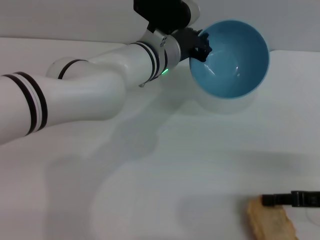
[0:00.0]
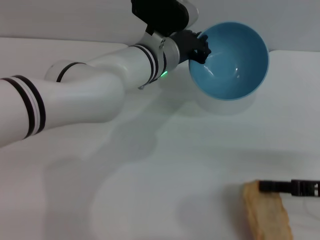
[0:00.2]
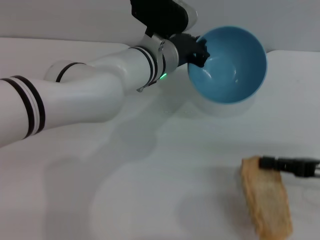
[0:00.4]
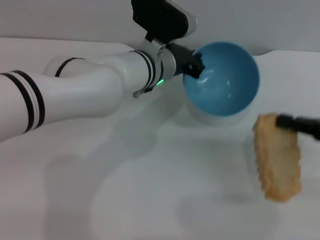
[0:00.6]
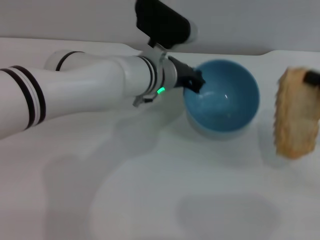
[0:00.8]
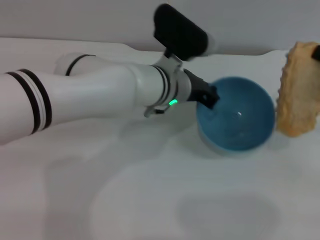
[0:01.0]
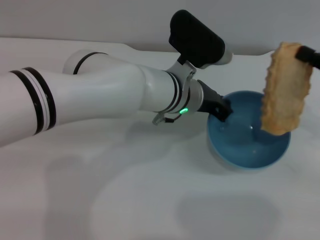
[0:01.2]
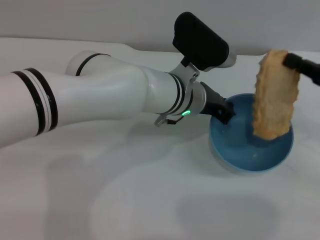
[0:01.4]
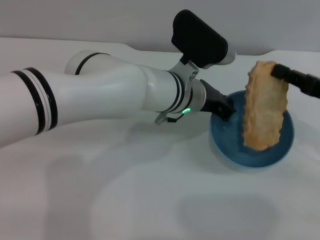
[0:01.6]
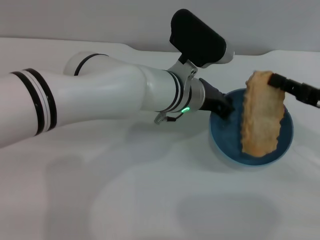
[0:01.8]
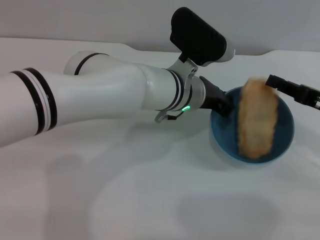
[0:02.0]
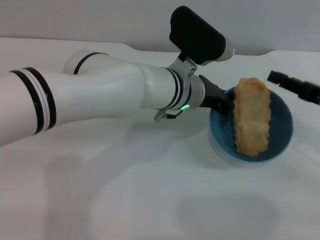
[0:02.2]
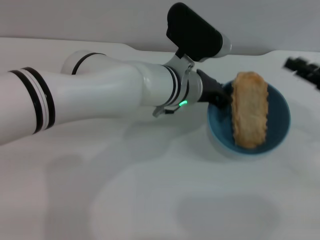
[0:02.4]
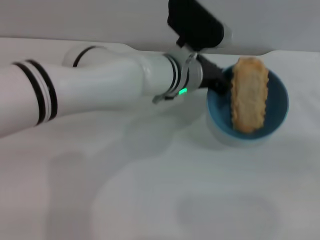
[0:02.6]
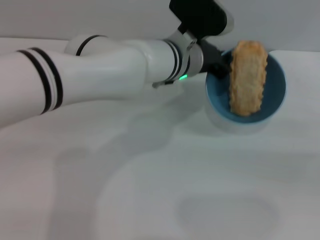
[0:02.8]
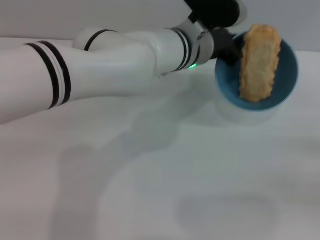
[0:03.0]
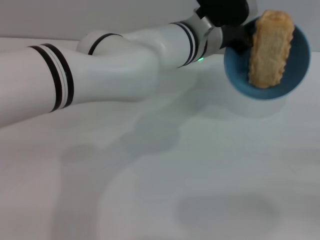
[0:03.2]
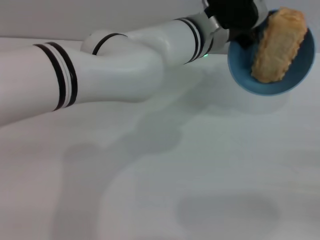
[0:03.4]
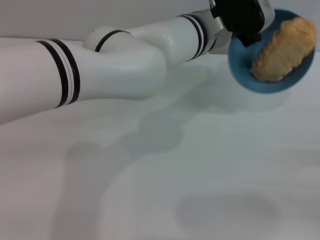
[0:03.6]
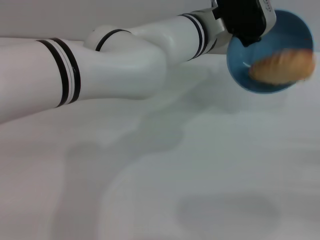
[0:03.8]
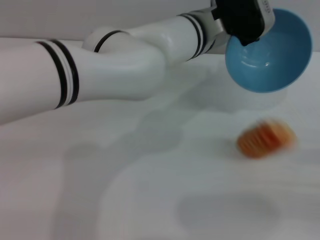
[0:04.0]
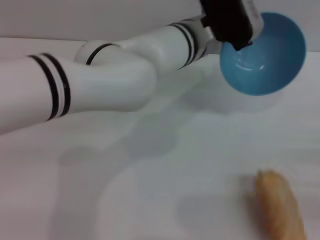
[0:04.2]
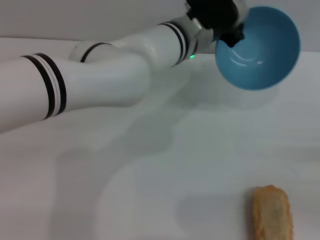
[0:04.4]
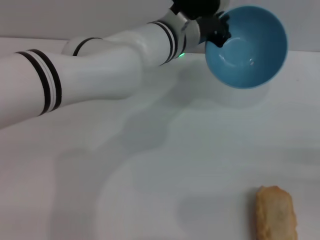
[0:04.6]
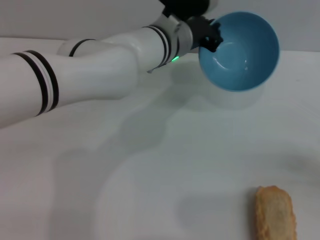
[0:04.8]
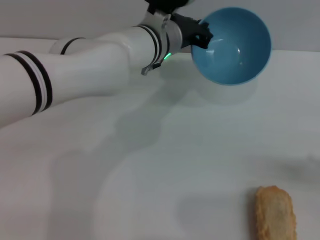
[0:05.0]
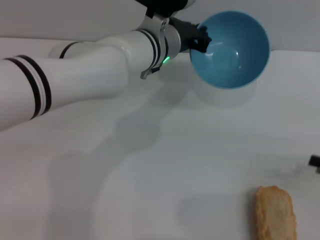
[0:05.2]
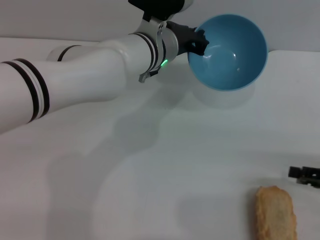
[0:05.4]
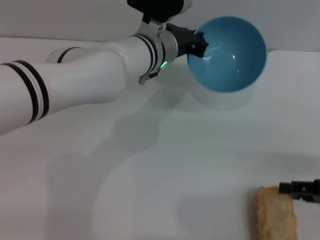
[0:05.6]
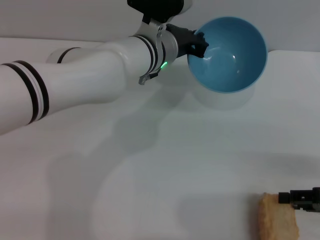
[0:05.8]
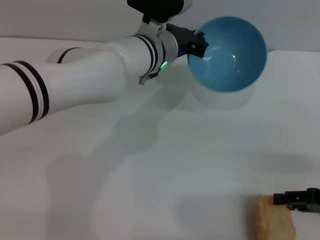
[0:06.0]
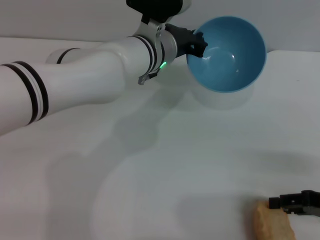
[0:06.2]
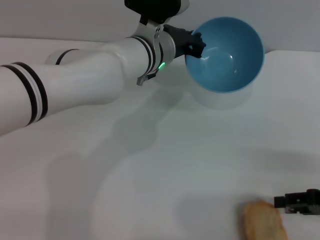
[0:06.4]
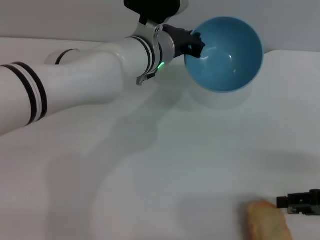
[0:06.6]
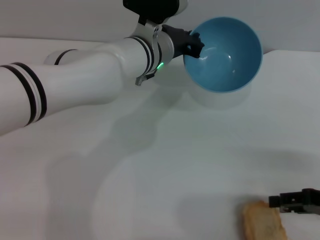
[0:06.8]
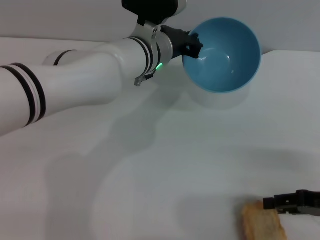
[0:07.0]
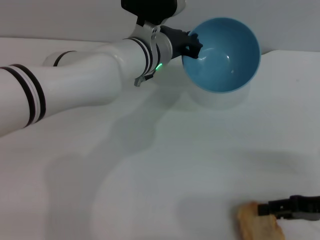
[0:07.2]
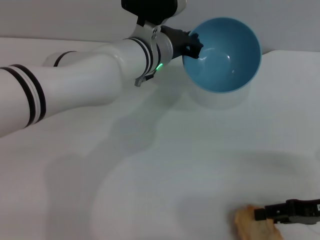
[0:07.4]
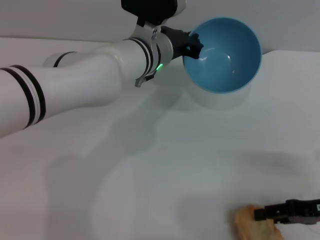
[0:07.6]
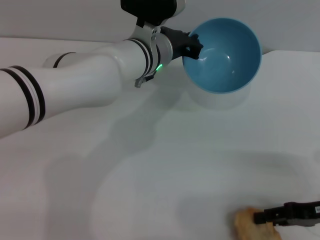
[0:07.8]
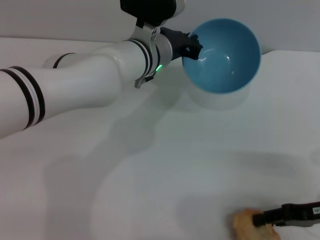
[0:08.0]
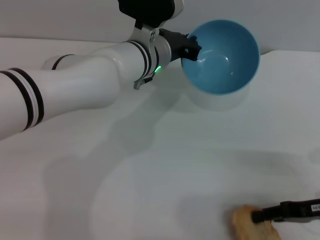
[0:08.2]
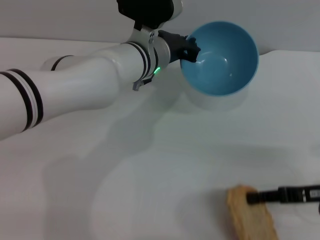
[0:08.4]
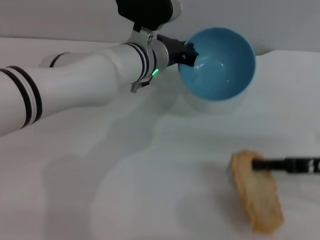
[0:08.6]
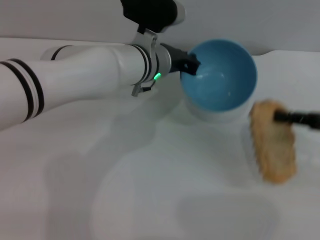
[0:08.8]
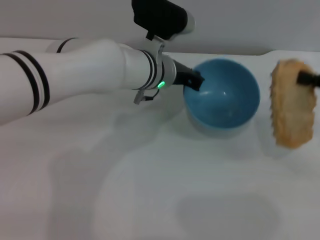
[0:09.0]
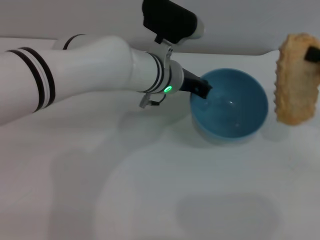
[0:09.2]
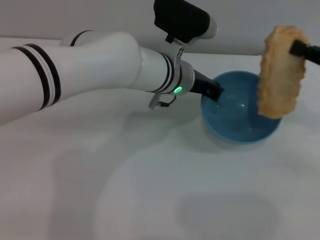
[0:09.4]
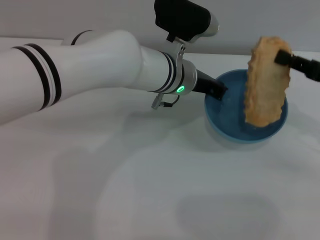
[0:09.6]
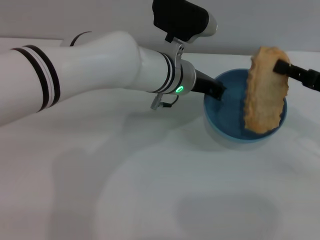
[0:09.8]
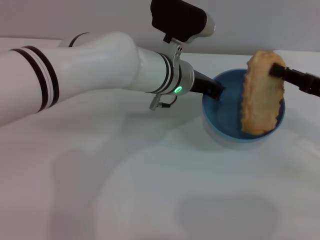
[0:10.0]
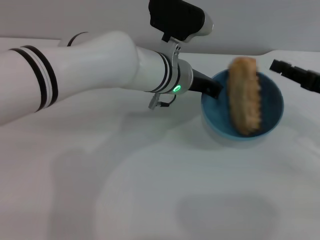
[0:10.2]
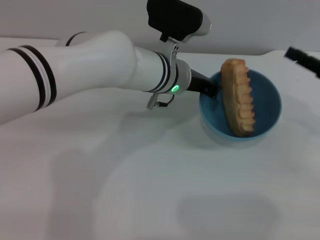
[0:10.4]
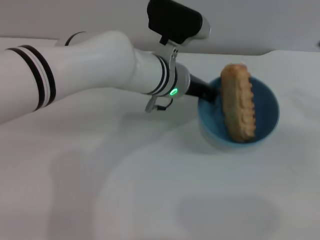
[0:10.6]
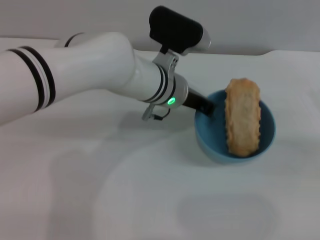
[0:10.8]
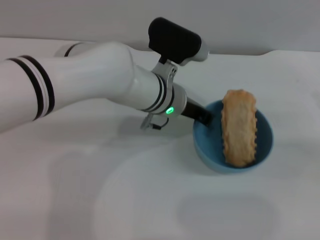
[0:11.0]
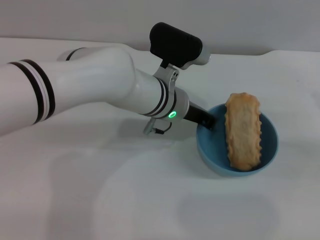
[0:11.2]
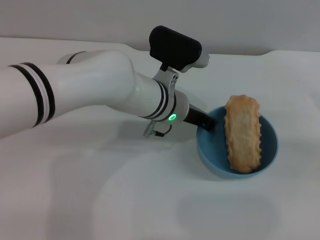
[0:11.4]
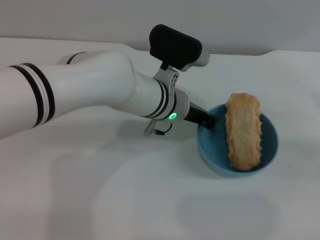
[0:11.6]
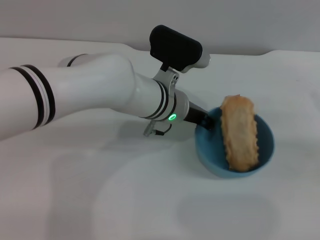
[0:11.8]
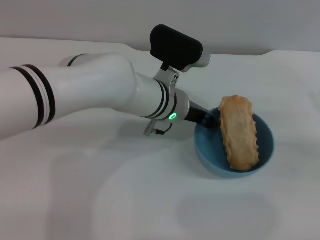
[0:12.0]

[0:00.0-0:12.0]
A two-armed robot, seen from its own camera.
Task of the whole recording: put the bread into the blue bowl and pour it out repeatedly.
Step, 0:00.8 to 0:02.2: Place the bread into the bowl.
Step, 0:02.6 to 0:04.4: Pour the bread out of the bowl.
Step, 0:04.6 to 0:08.6: Pick up the bread with the right gripper.
Step, 0:09.0 to 0:10.2: Place the bread into the bowl.
0:00.0 to 0:01.6: The left gripper shifts by about 5 cm, while the right gripper is displaced upward and forward by approximately 10 cm.
0:01.6 to 0:03.0: The left gripper changes place by approximately 5 cm. The right gripper heads to the right and backward, covering roughly 15 cm, and opens.
0:04.4 to 0:06.0: The right gripper is displaced to the left by approximately 5 cm.
0:06.0 to 0:07.6: The grippers make only small movements.
0:07.6 to 0:09.0: The right gripper shifts about 15 cm upward and forward, and closes up.
0:09.0 to 0:10.4: The right gripper moves some 5 cm, and opens its fingers.
0:10.4 to 0:12.0: The right gripper shifts by roughly 5 cm.

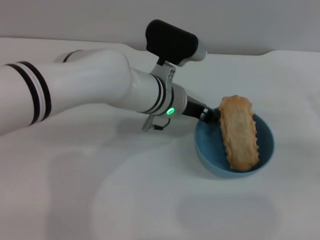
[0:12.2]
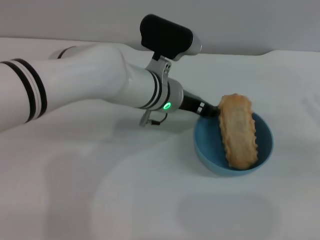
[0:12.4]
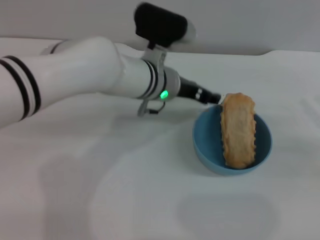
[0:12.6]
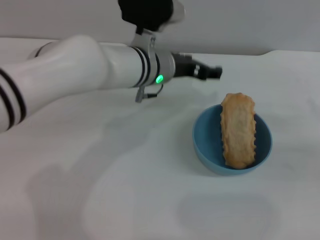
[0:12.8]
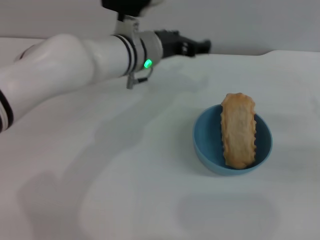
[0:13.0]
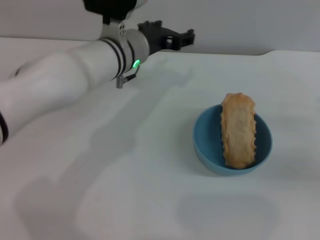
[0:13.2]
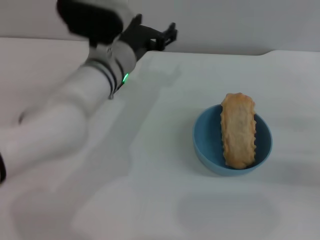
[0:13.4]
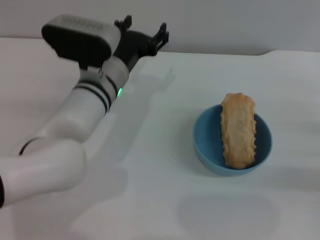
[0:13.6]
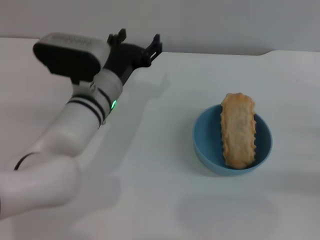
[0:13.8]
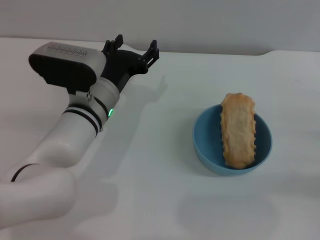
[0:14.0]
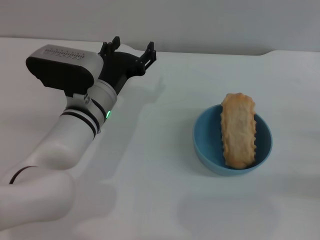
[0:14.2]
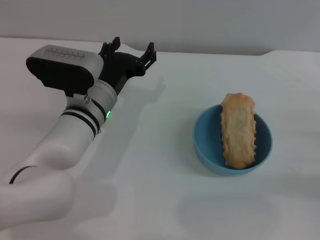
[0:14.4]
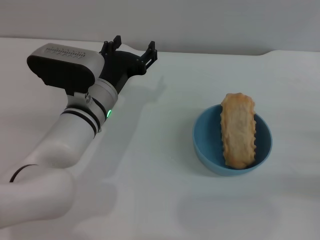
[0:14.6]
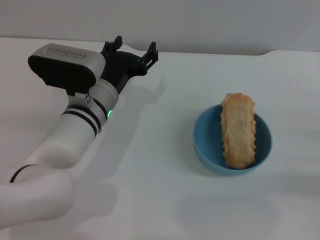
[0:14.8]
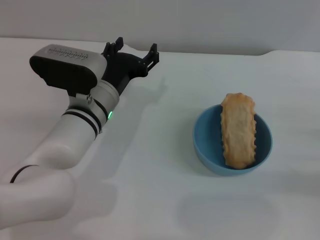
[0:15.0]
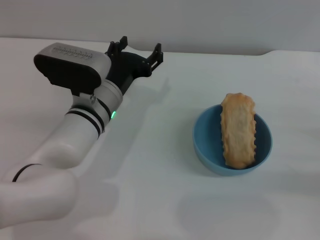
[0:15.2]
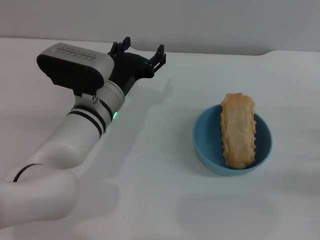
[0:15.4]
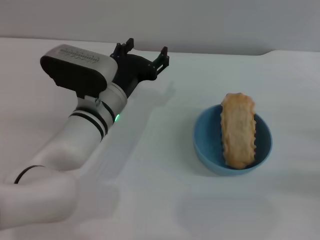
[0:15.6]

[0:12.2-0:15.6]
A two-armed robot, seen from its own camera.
Task of the whole recording: put the bread into the blue bowl and pour it out repeatedly.
0:12.2 to 0:13.8: The left gripper heads to the left, covering some 10 cm, and opens. The right gripper is displaced downward by approximately 5 cm.
0:13.8 to 0:15.6: The grippers move only a little.

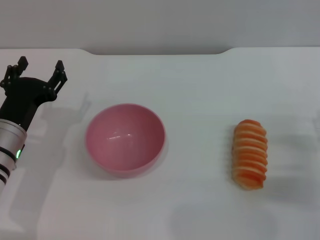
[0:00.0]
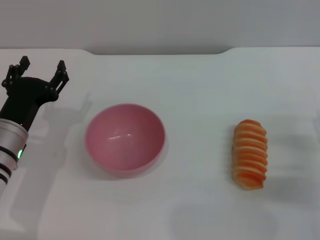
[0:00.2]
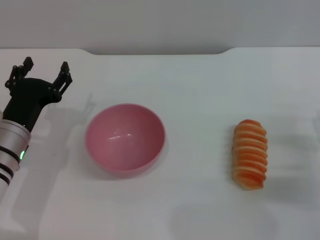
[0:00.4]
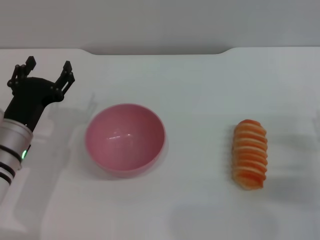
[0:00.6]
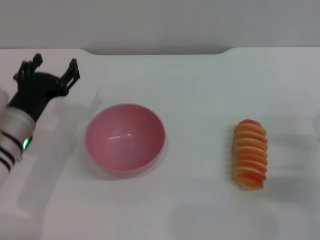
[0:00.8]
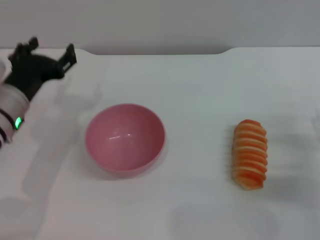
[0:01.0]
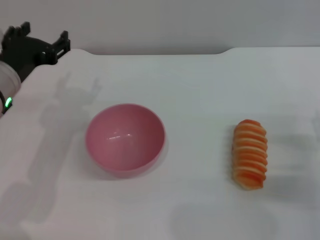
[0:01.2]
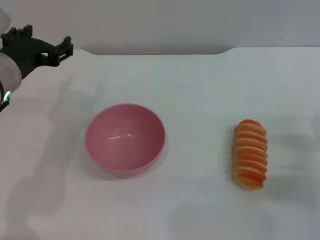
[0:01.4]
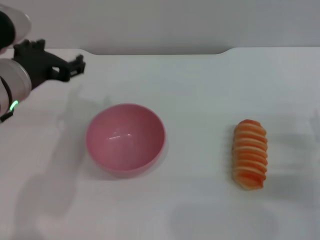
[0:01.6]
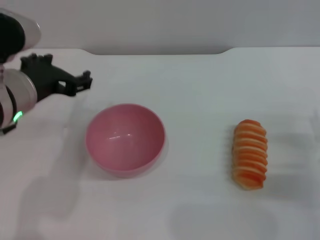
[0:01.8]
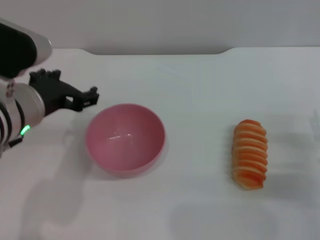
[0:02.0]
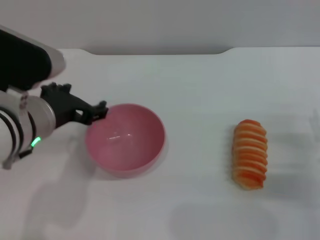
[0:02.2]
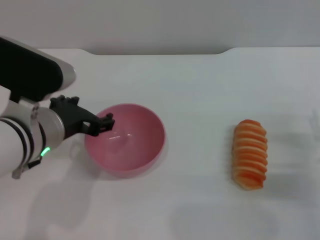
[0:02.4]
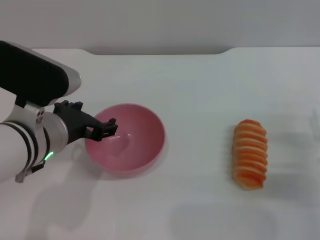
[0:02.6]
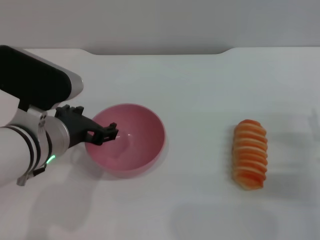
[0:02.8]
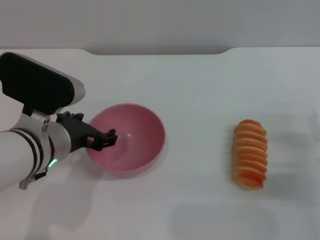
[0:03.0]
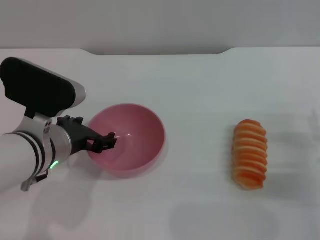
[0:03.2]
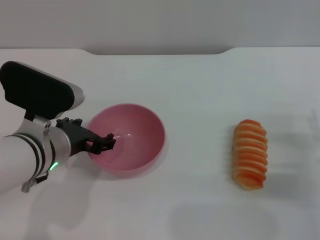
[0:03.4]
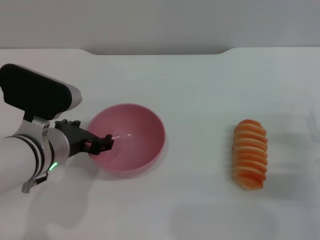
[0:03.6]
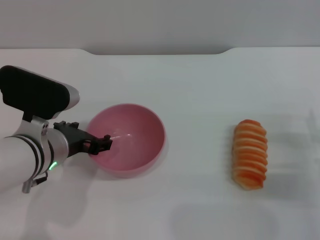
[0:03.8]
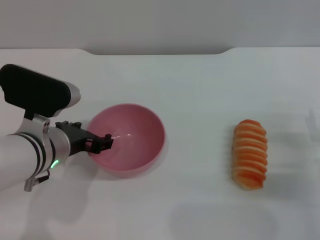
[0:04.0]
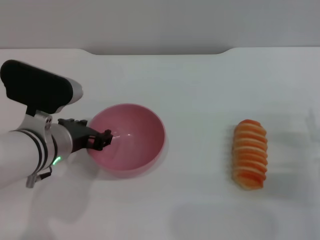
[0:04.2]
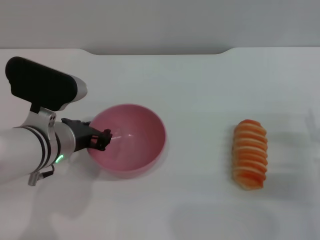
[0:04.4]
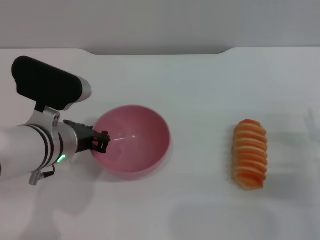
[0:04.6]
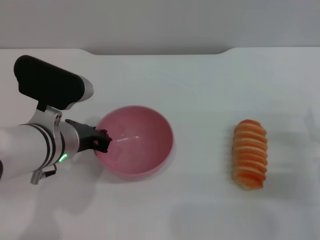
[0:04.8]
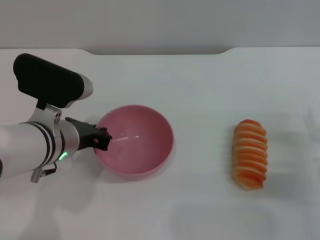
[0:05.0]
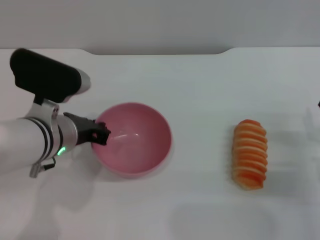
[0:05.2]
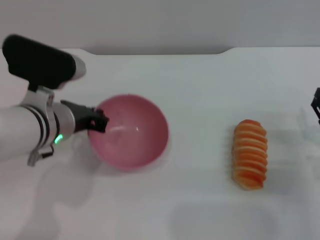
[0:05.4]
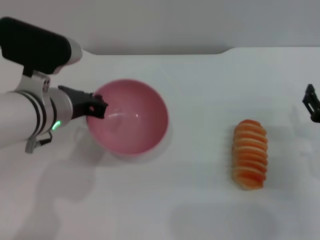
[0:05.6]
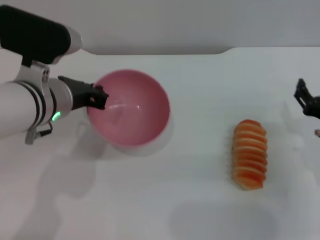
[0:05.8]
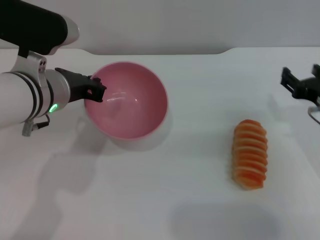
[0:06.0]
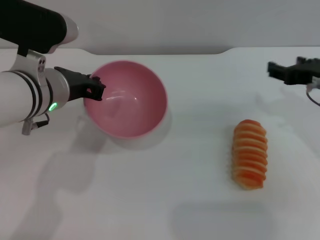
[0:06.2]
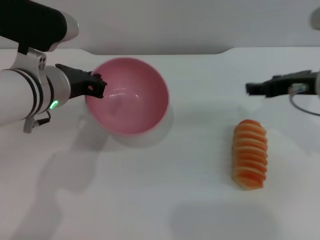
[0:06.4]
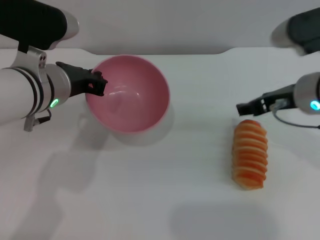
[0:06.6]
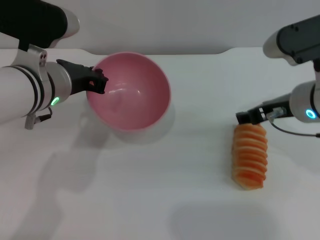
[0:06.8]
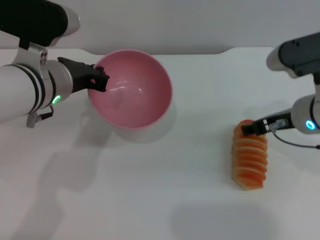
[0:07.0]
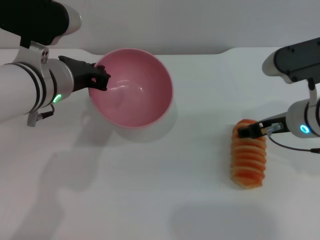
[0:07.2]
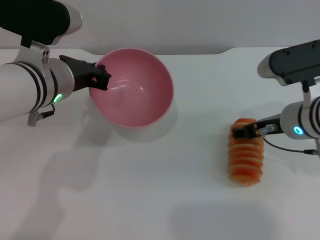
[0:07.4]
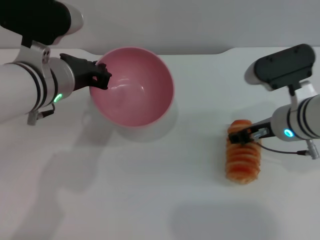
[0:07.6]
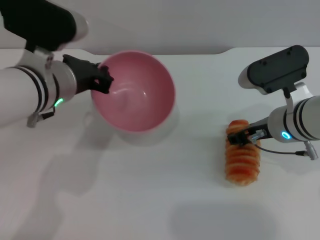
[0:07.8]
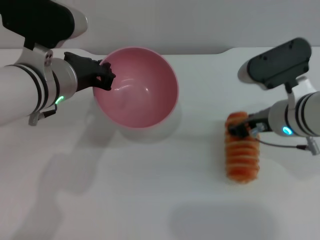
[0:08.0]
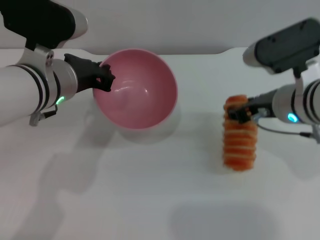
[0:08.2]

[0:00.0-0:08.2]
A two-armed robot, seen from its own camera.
Task of the whole recording: put the bread into the pink bowl and pour it out repeatedly.
Step, 0:00.0 to 0:06.4: Pick up the bowl with the left gripper.
Step, 0:06.6 to 0:08.2: Pick up the bread with the right gripper.
0:00.0 to 0:01.6: The left gripper shifts about 15 cm upward.
0:01.6 to 0:03.2: The left gripper moves downward, about 5 cm.
0:03.2 to 0:05.0: The left gripper closes its fingers.
0:05.0 to 0:06.6: The left gripper moves upward, roughly 5 cm, while the right gripper is displaced upward, to the left and forward by roughly 20 cm.
